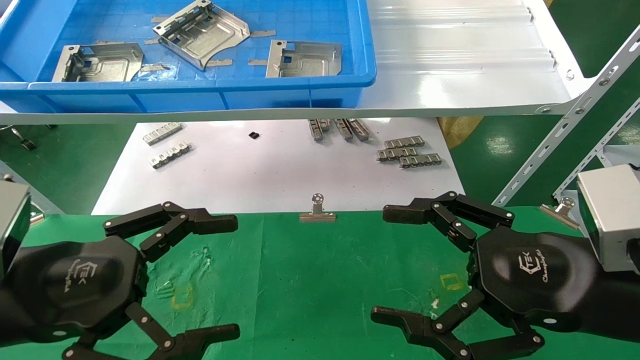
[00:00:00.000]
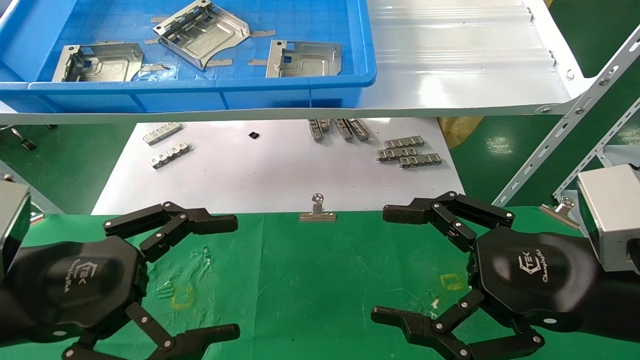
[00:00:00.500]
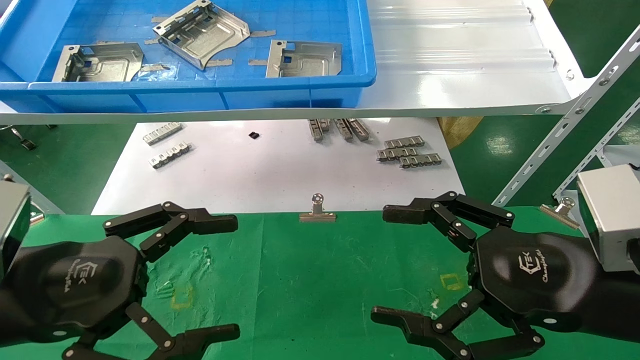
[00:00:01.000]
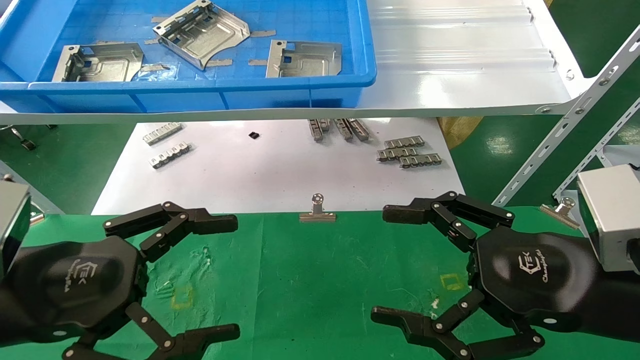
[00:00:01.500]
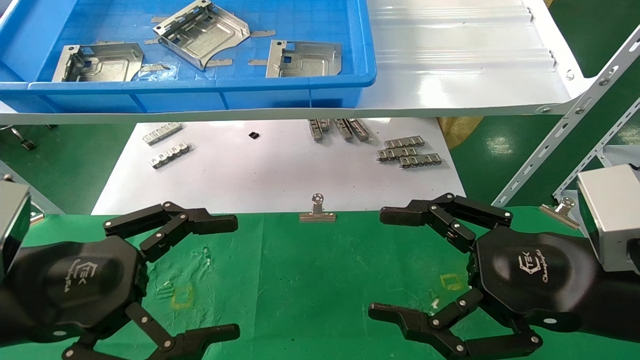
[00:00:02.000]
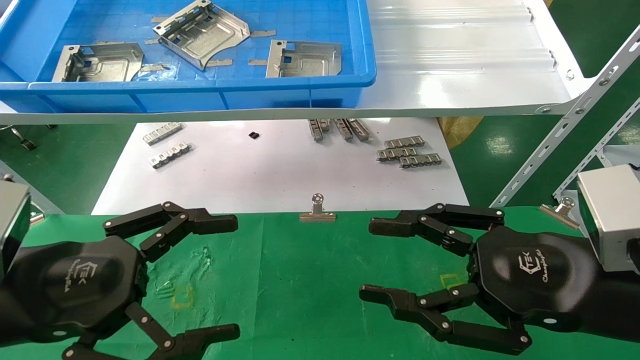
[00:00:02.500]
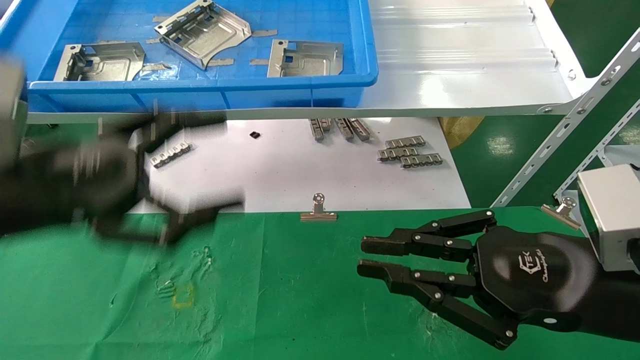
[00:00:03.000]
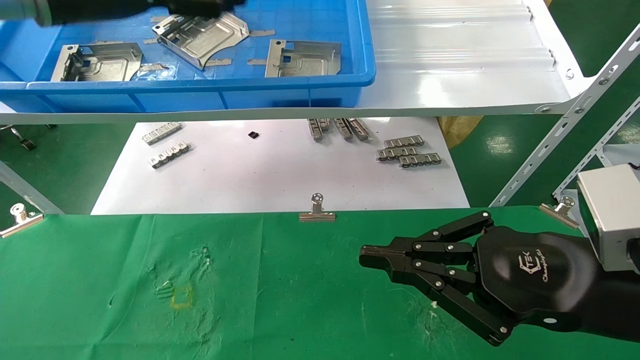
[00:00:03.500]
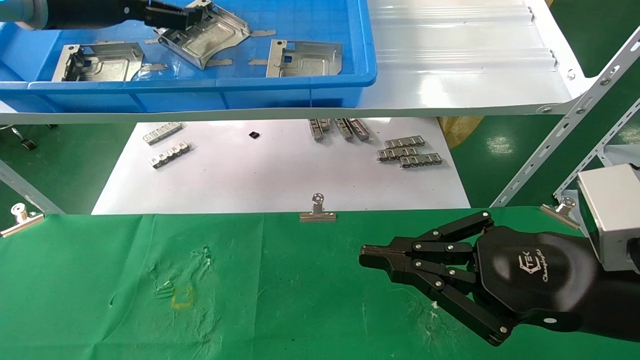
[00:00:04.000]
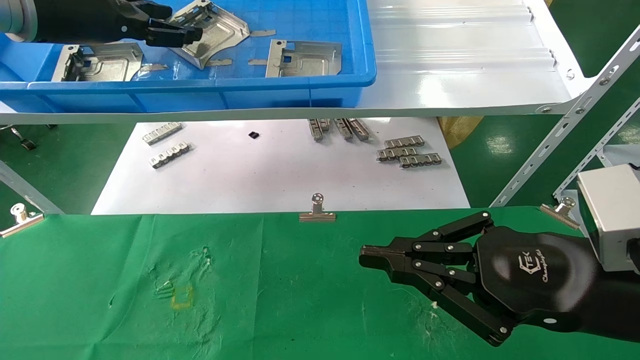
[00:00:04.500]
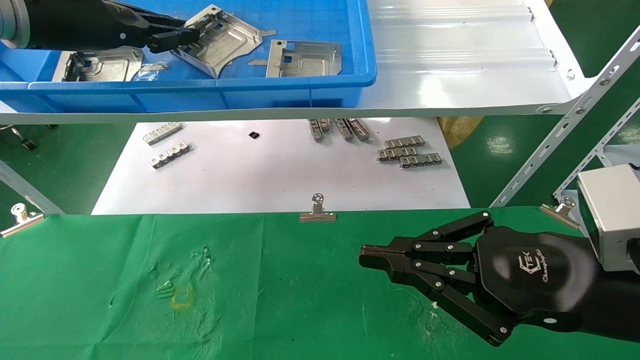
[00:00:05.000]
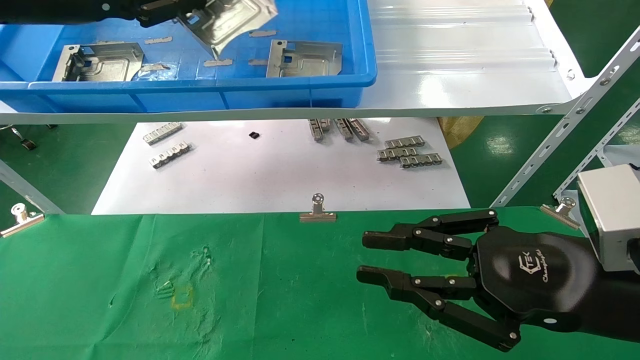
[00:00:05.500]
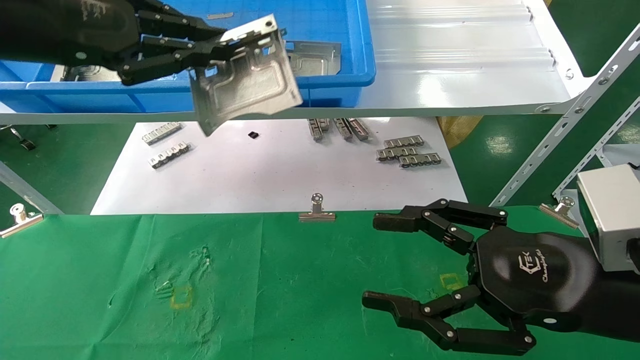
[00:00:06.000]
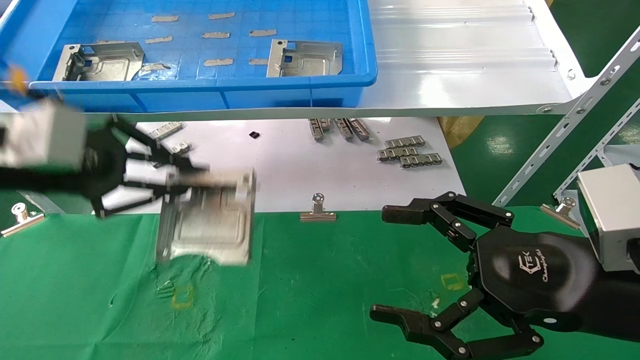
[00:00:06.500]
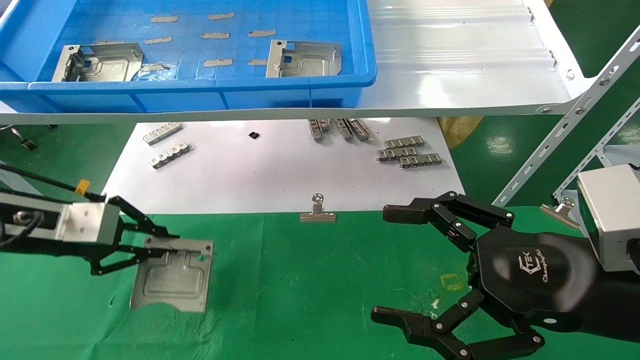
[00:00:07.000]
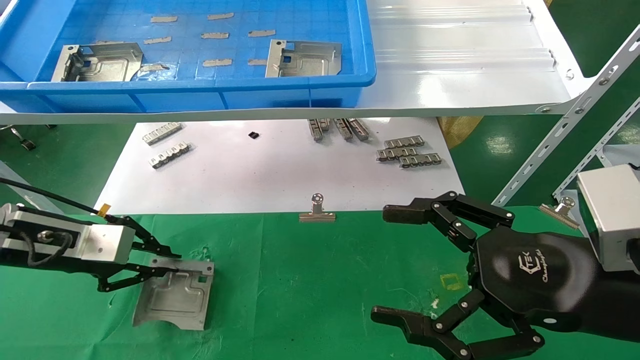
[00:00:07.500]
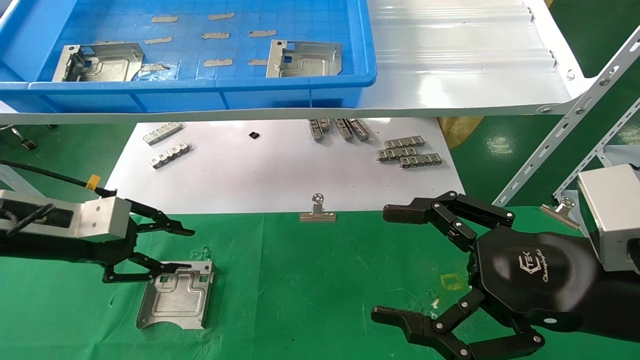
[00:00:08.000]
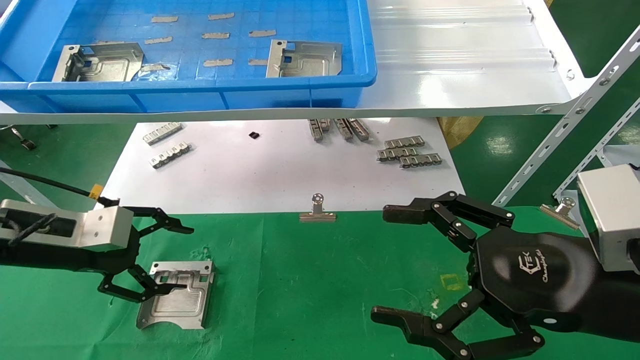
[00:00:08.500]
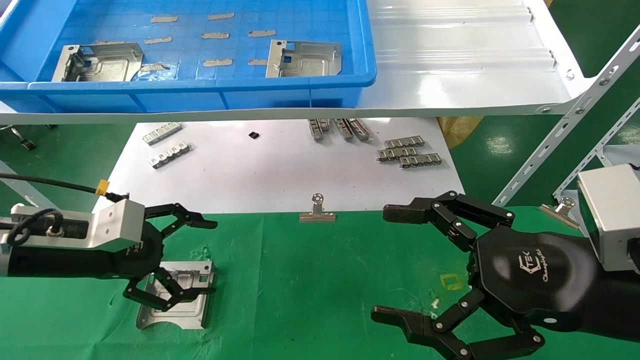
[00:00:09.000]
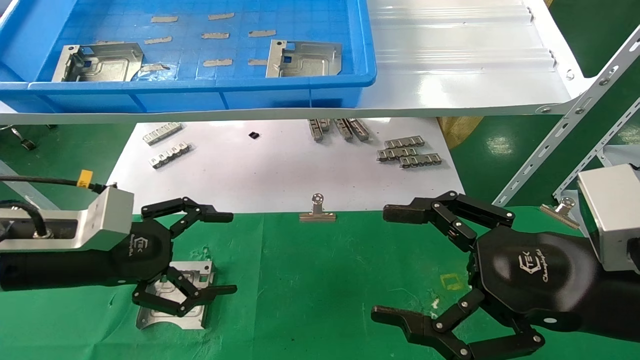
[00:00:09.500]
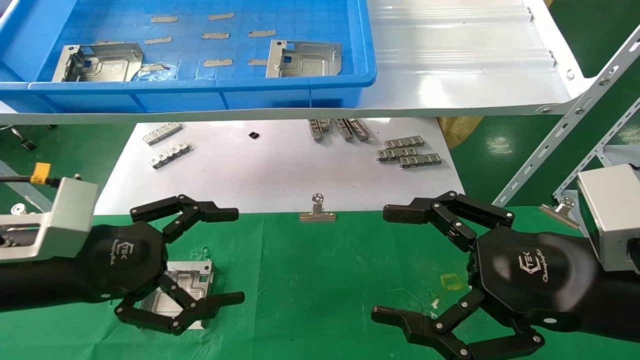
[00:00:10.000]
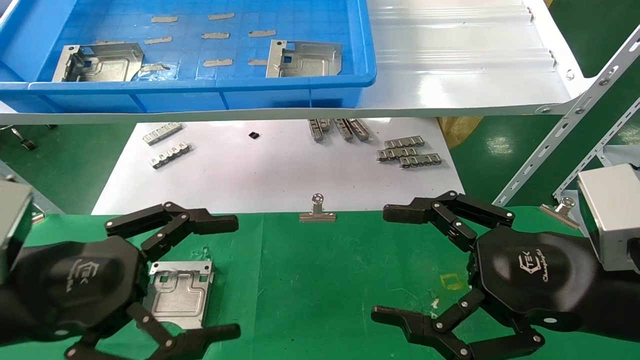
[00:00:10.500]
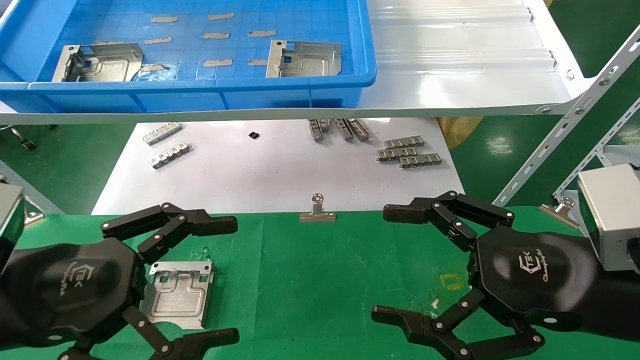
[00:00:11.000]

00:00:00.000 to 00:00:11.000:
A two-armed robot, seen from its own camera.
Task of the whole recording: use the mechanical arm to pick up the parts and place them on the table.
Step, 00:00:03.500 to 00:00:05.000: Pick up the hard drive bracket from the feeding area.
Step, 00:00:05.500 to 00:00:07.500: Place the hard drive bracket into the box.
00:00:00.000 to 00:00:02.000: Both grippers stay put.
00:00:02.000 to 00:00:03.500: The right gripper closes its fingers, while the left gripper goes about 30 cm upward and forward.
00:00:03.500 to 00:00:05.500: The left gripper closes.
00:00:05.500 to 00:00:07.500: The left gripper travels downward by about 25 cm. Meanwhile the right gripper opens up.
00:00:07.500 to 00:00:09.000: The left gripper changes place by about 5 cm, and opens up.
00:00:09.000 to 00:00:11.000: The left gripper goes approximately 15 cm backward.
